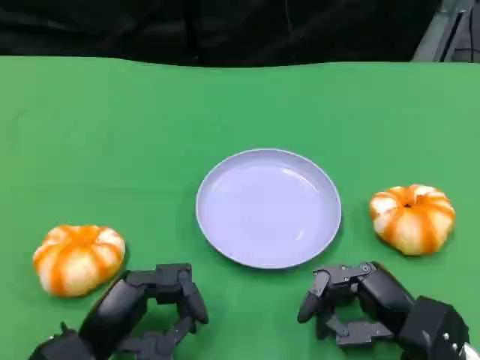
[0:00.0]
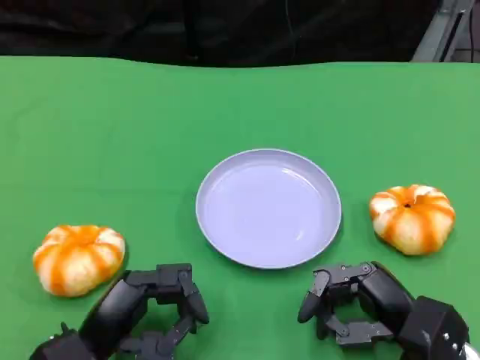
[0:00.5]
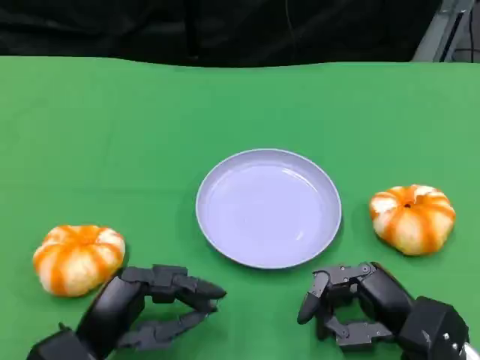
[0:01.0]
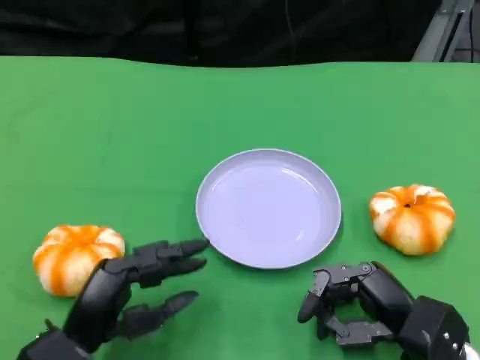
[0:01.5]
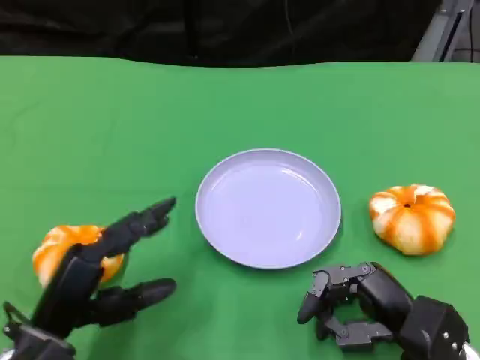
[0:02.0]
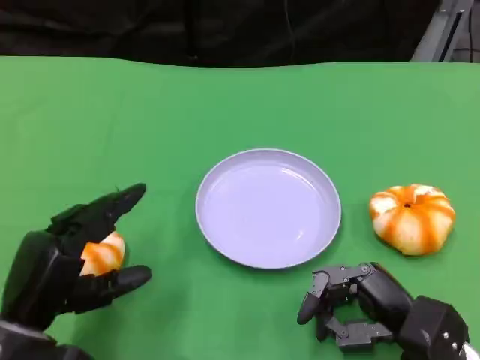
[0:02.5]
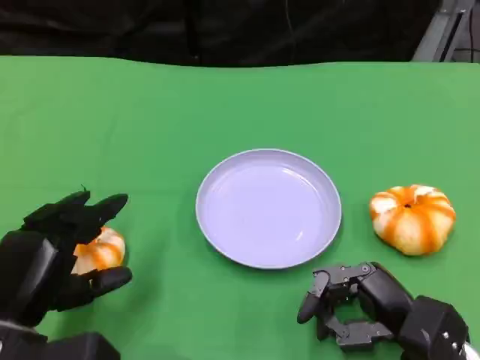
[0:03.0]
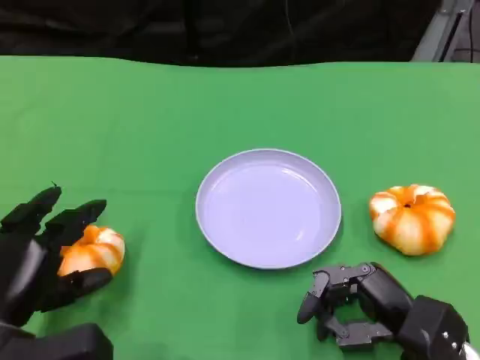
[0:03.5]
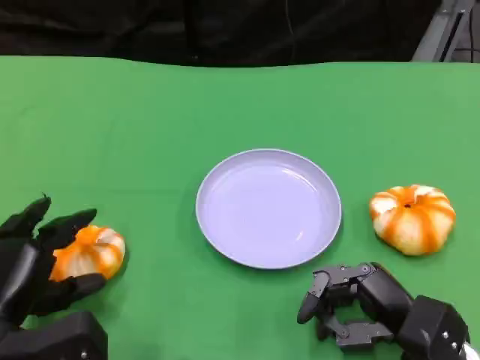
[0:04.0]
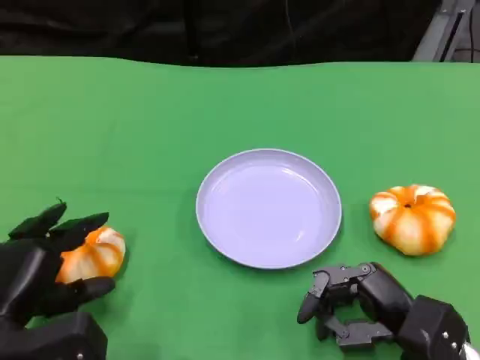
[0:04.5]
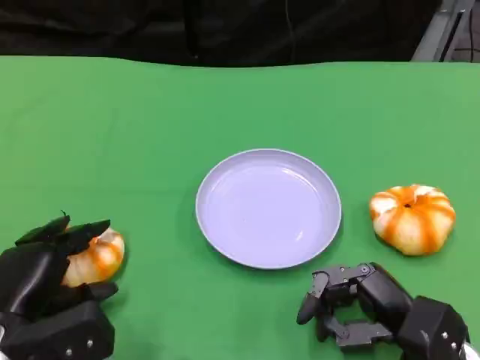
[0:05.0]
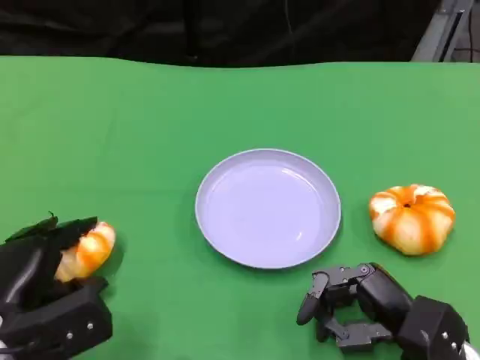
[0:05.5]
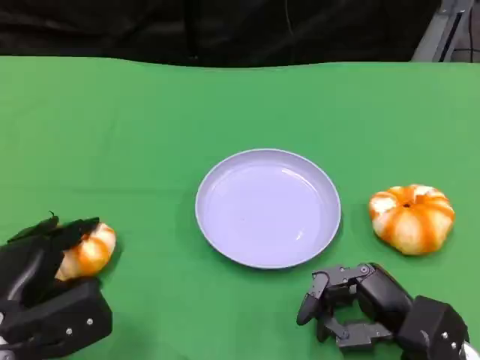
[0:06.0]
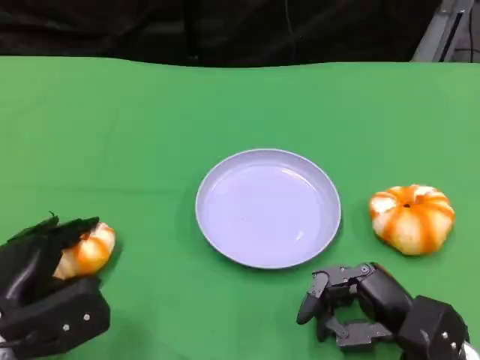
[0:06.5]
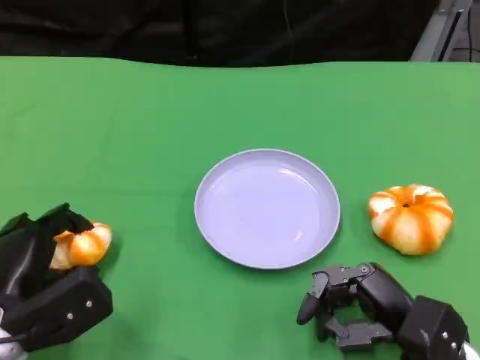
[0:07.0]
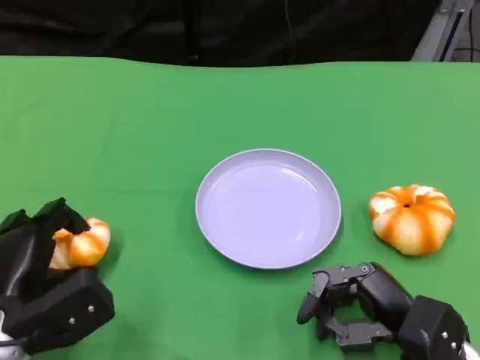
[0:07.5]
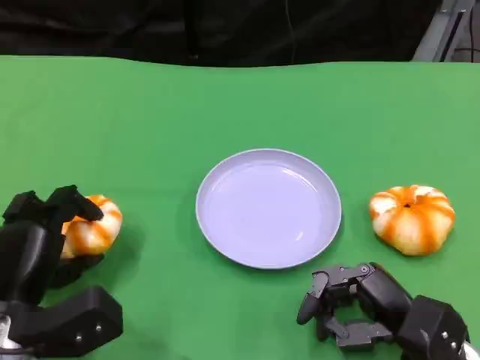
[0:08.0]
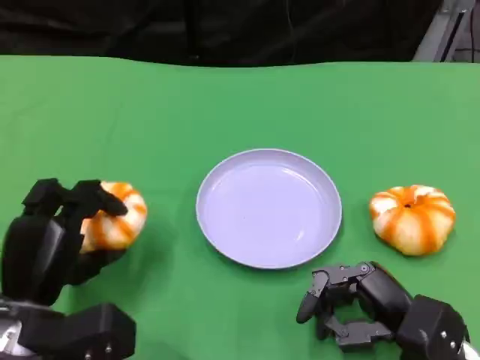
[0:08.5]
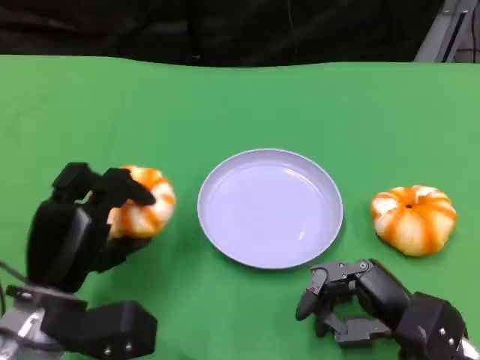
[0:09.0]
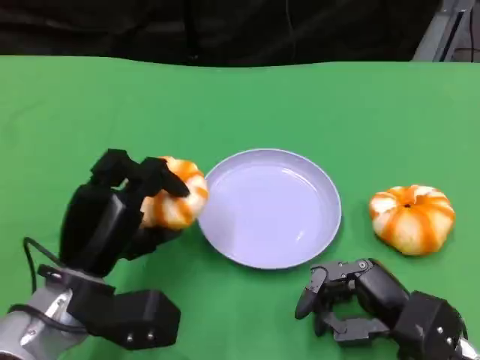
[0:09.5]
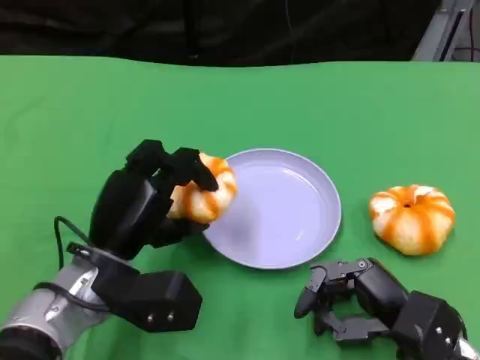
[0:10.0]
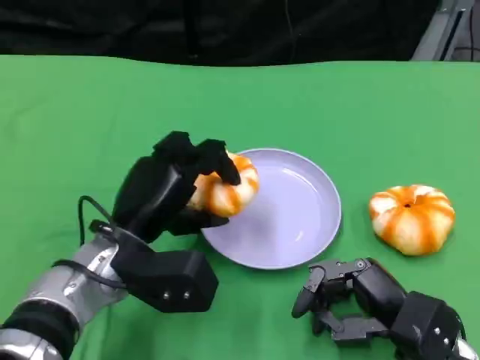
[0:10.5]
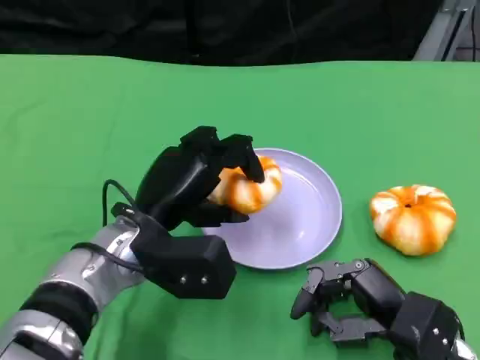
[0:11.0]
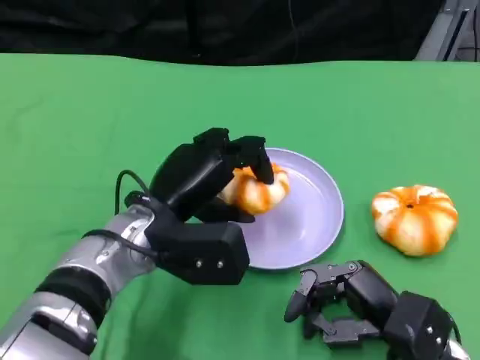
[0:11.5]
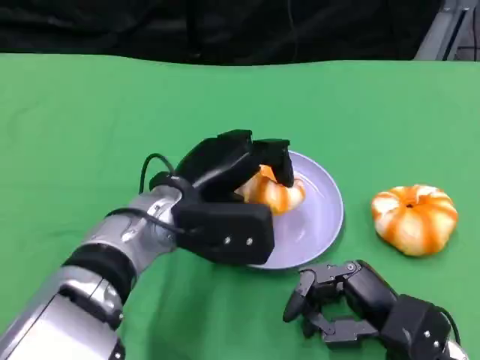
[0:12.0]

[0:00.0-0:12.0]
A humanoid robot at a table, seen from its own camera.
Task of the whole recording: Grasp the bread from the table and place it into the plate.
0:04.0 to 0:06.0: The hands move only a little.
0:08.0 to 0:10.0: The left hand is displaced to the right by approximately 10 cm.
0:10.0 to 0:12.0: The left hand moves to the right, some 5 cm.

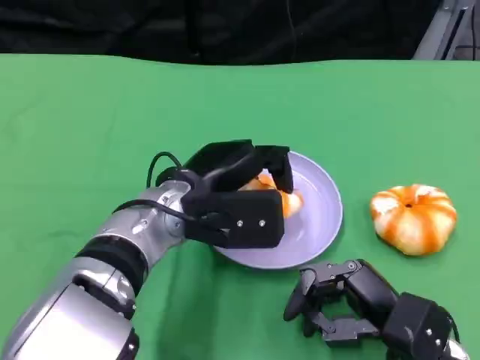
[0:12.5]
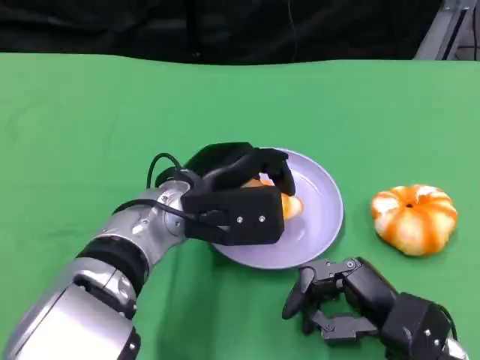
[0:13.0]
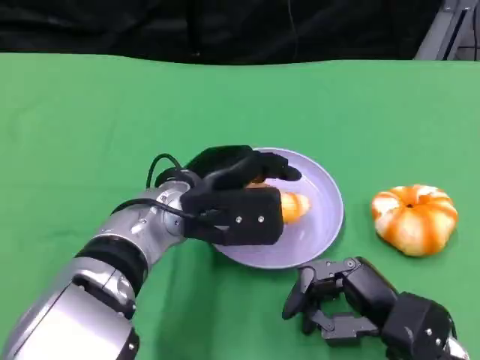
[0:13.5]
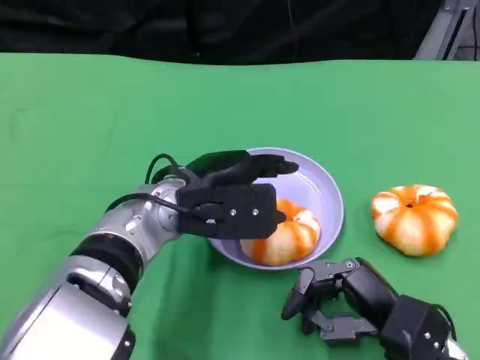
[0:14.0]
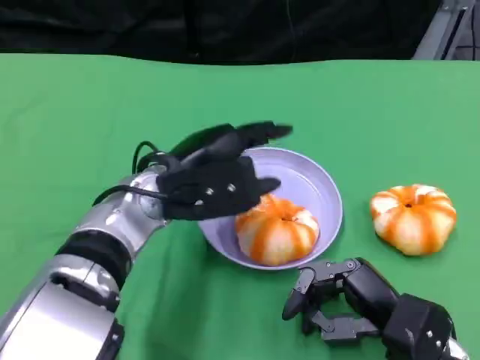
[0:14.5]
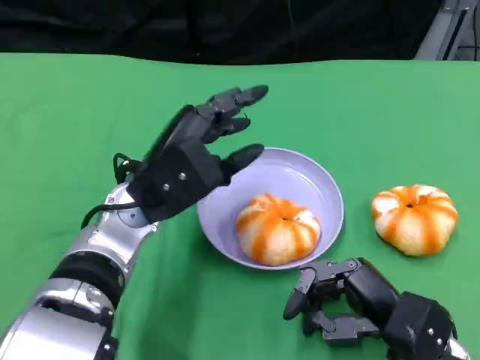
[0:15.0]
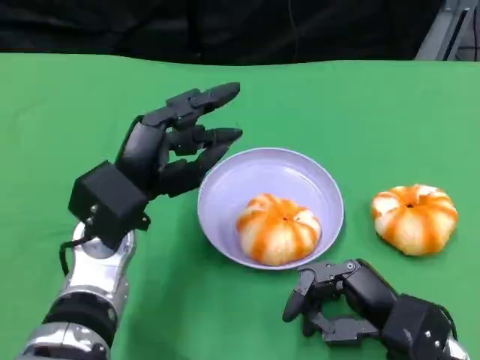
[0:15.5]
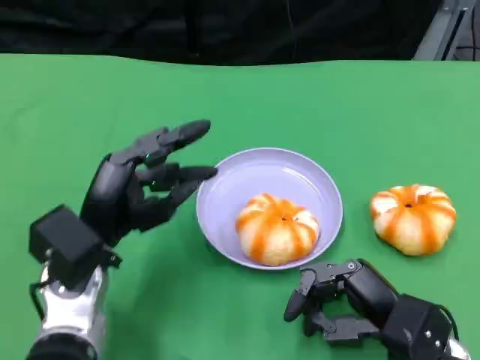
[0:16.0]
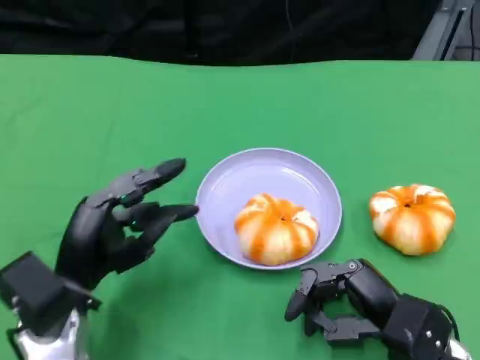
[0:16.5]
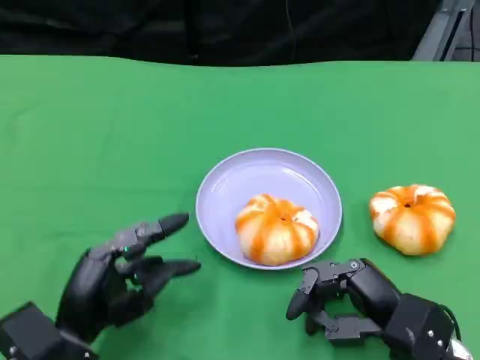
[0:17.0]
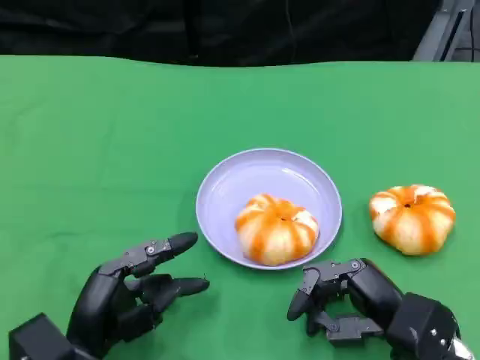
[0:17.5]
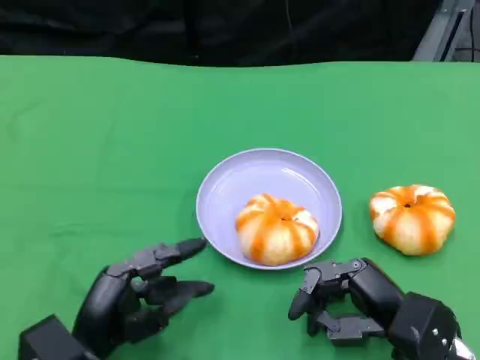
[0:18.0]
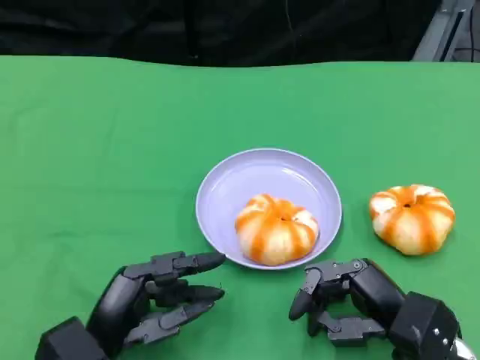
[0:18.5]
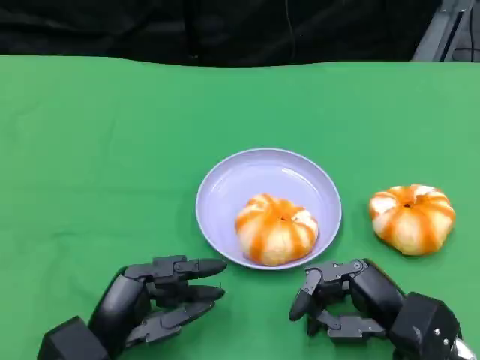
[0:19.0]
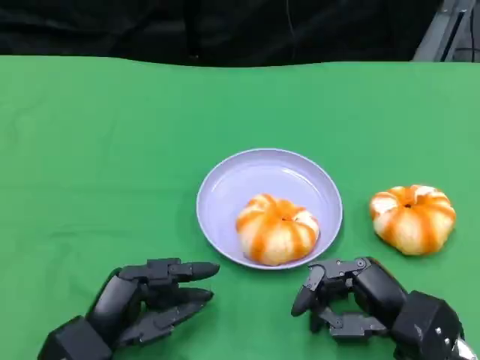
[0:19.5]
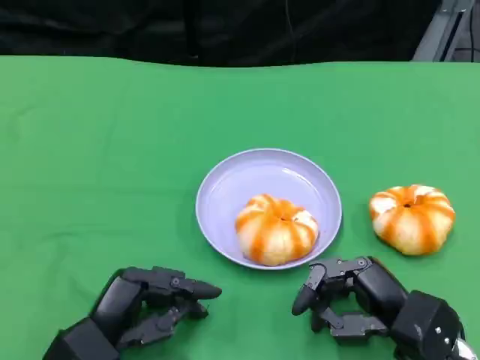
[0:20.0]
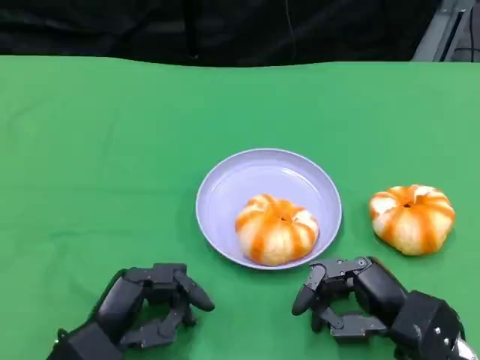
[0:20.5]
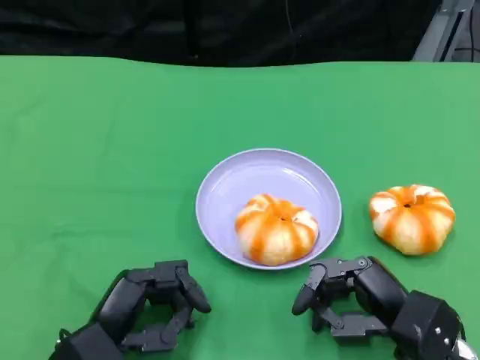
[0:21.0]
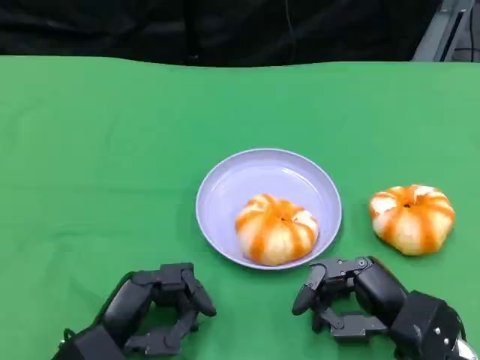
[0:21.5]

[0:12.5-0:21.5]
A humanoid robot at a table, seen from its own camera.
Task of the whole recording: Grasp the bread from the table and place it into the plate.
0:12.5 to 0:14.5: The hands make only small movements.
0:14.5 to 0:17.0: The left hand moves backward, downward and to the left, approximately 20 cm.
0:17.0 to 0:21.5: There are only small adjustments of the hands.

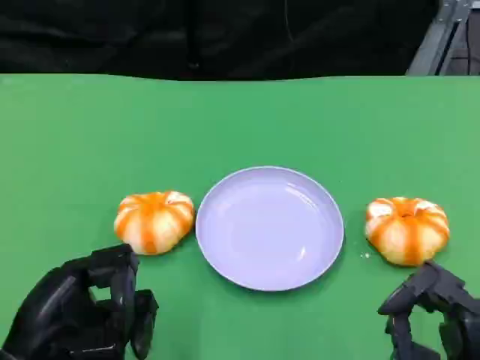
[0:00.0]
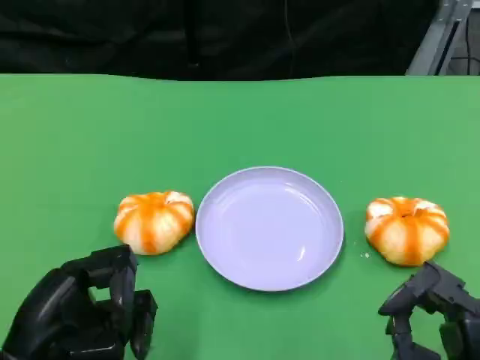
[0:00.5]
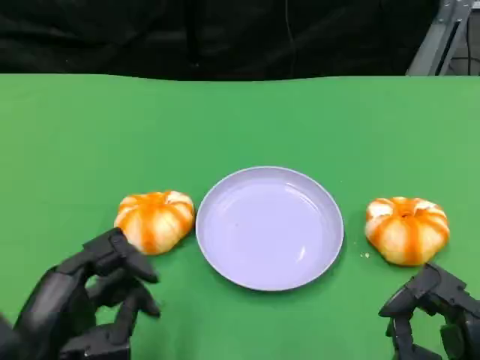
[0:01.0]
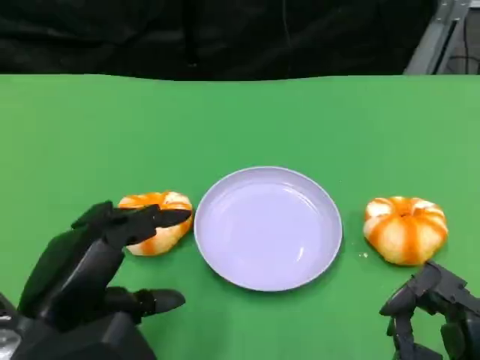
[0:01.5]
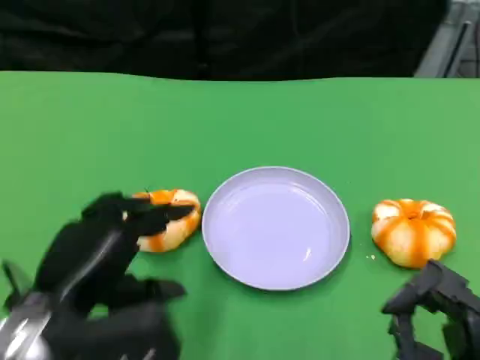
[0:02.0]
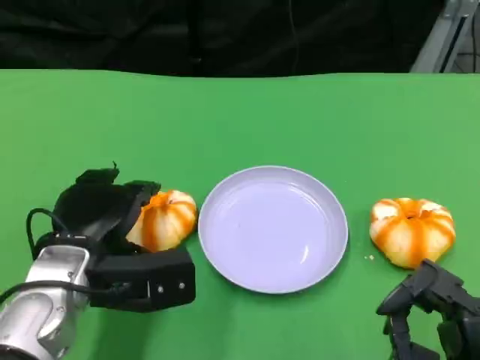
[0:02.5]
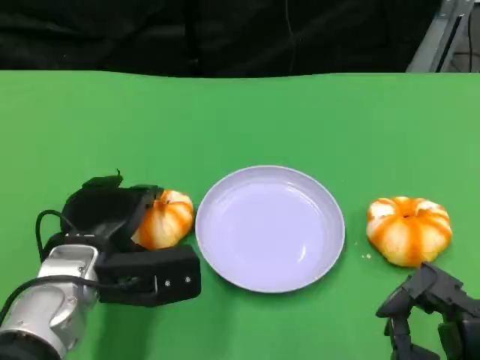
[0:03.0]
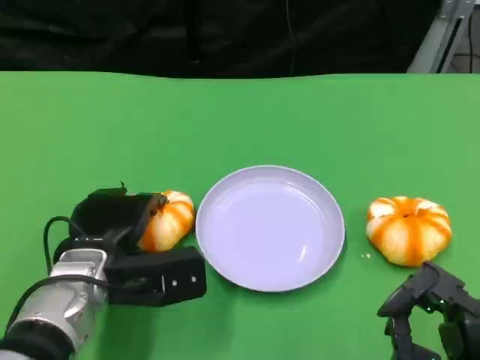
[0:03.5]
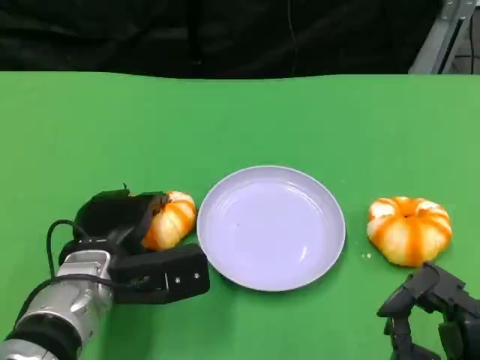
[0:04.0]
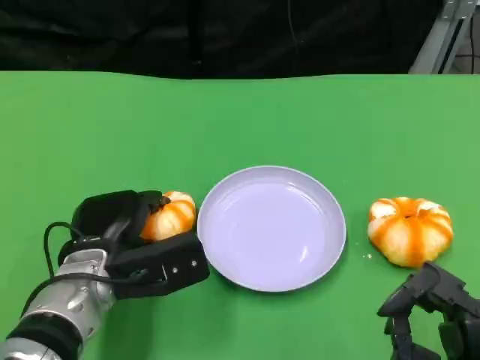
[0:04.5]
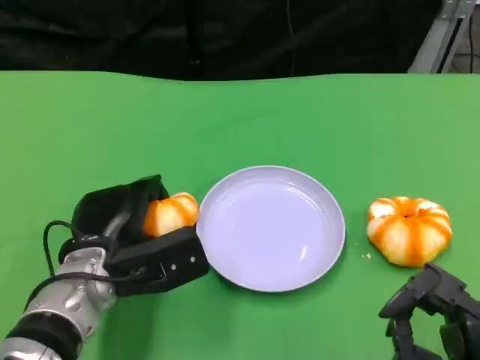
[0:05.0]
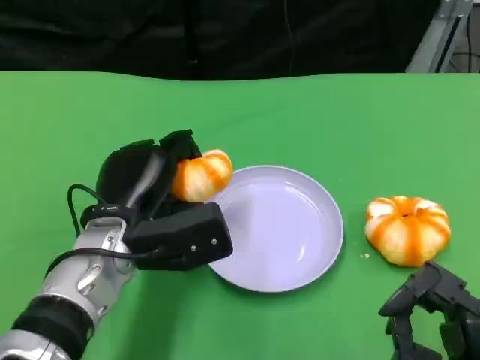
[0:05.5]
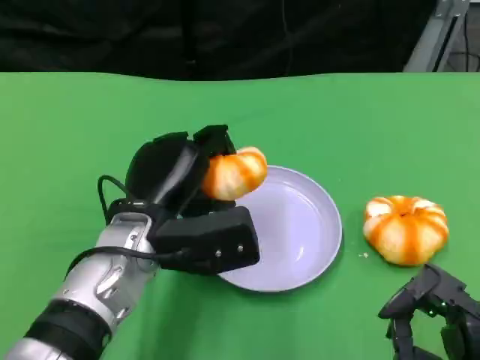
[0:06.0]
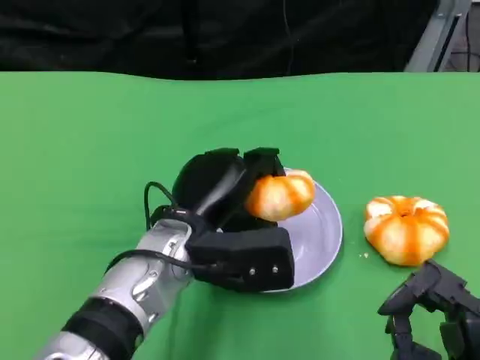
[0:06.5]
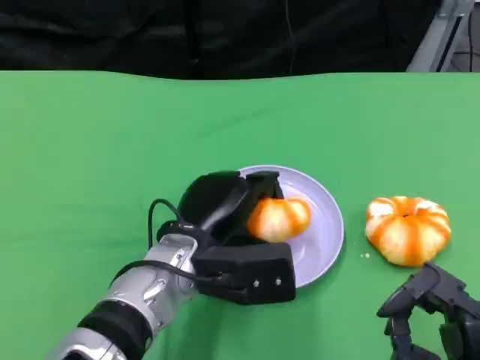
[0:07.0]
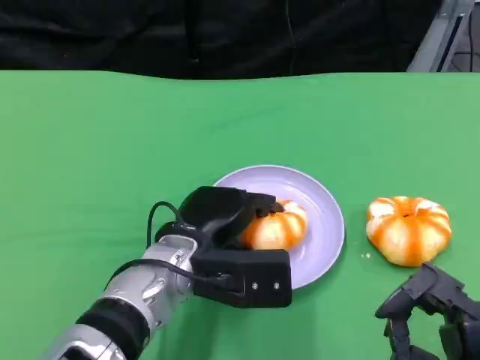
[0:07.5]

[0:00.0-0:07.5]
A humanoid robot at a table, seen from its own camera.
Task of the whole recording: Grasp the bread from the table and place it into the plate.
0:00.0 to 0:02.0: The left hand goes about 5 cm forward.
0:02.0 to 0:04.0: The left hand travels downward and forward by roughly 10 cm.
0:05.5 to 0:07.5: The left hand heads to the right, covering some 5 cm.
